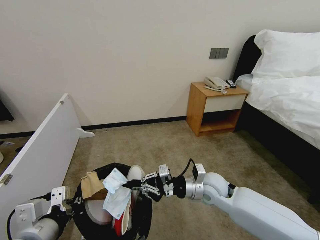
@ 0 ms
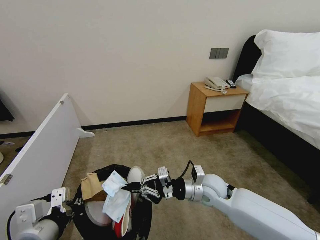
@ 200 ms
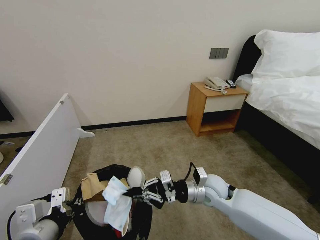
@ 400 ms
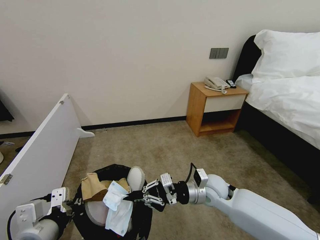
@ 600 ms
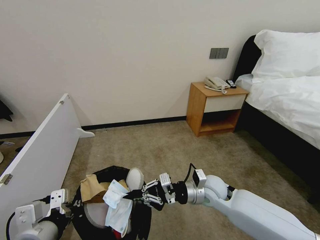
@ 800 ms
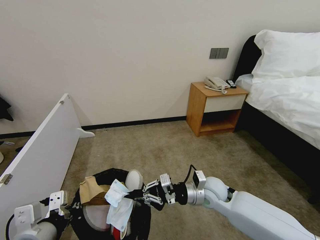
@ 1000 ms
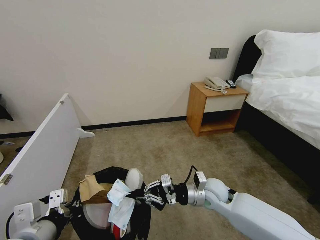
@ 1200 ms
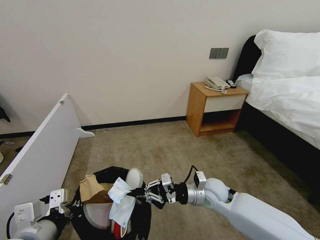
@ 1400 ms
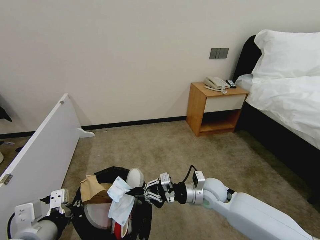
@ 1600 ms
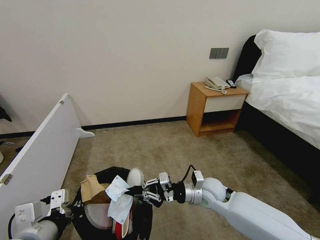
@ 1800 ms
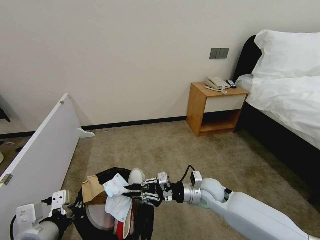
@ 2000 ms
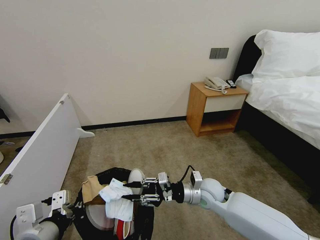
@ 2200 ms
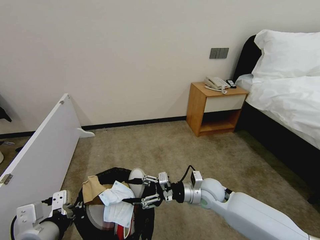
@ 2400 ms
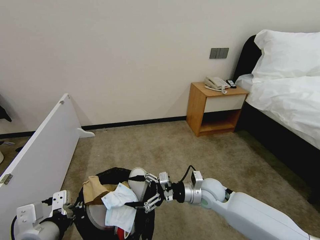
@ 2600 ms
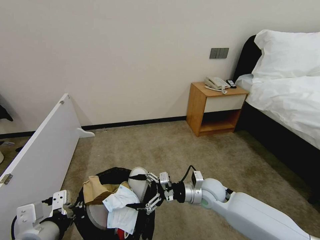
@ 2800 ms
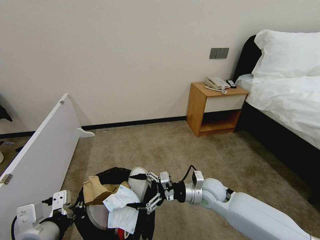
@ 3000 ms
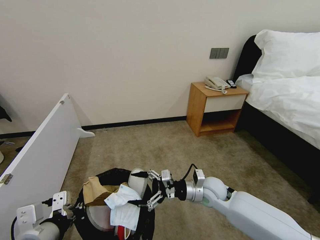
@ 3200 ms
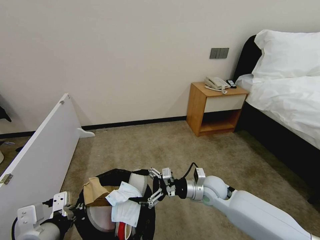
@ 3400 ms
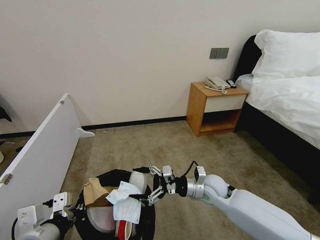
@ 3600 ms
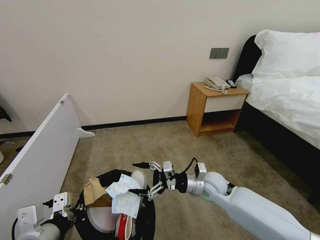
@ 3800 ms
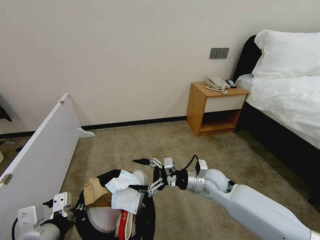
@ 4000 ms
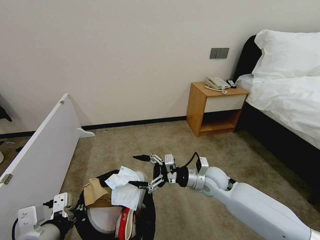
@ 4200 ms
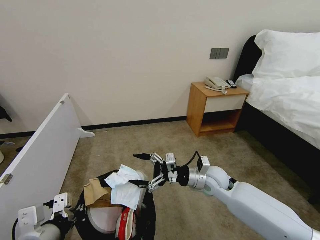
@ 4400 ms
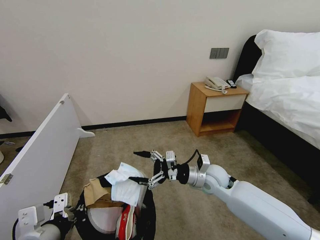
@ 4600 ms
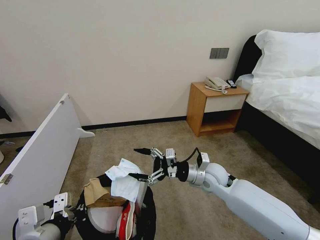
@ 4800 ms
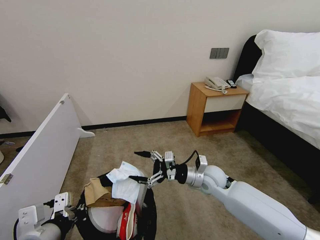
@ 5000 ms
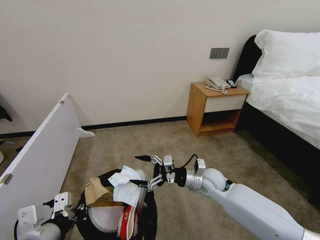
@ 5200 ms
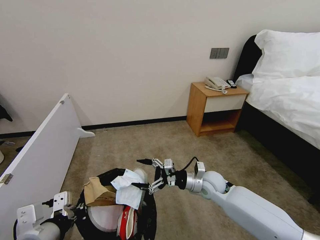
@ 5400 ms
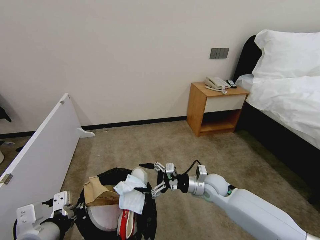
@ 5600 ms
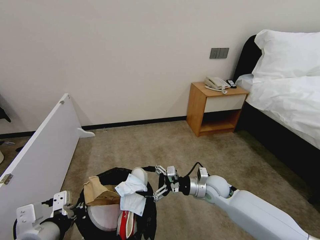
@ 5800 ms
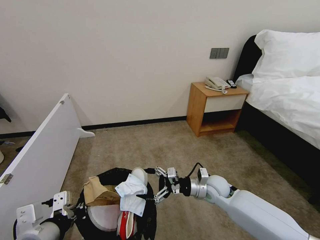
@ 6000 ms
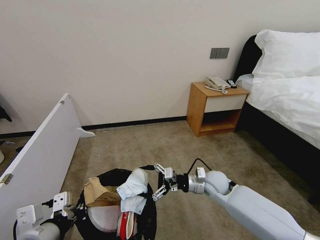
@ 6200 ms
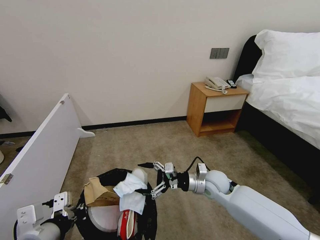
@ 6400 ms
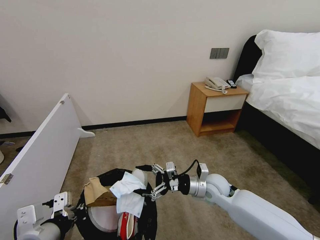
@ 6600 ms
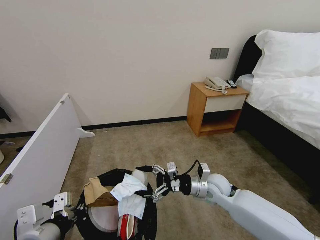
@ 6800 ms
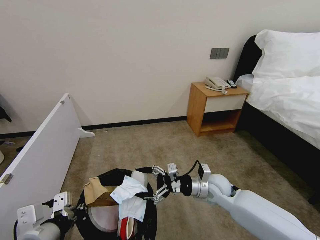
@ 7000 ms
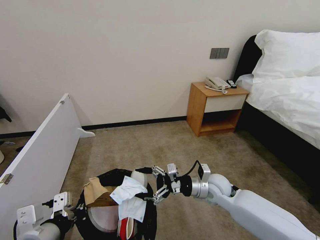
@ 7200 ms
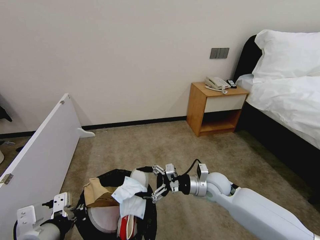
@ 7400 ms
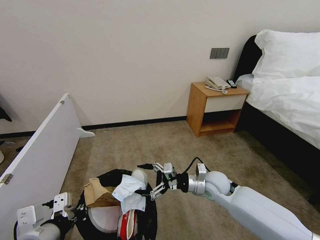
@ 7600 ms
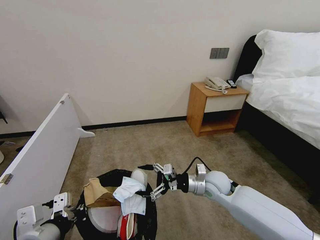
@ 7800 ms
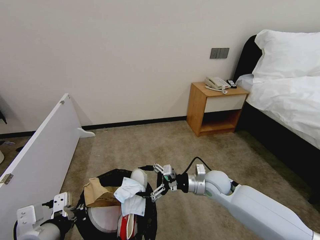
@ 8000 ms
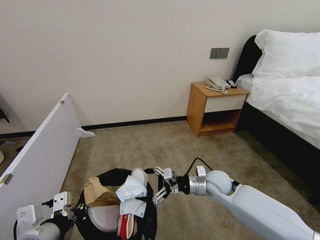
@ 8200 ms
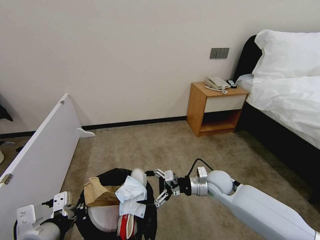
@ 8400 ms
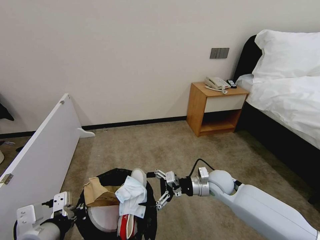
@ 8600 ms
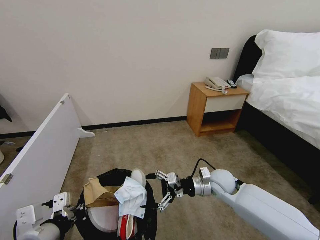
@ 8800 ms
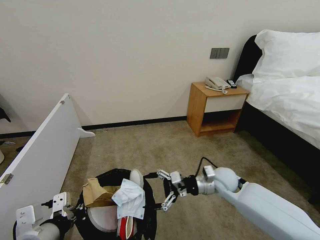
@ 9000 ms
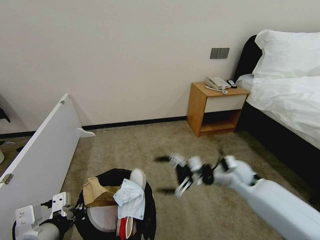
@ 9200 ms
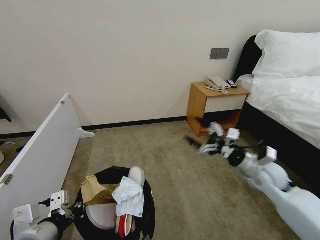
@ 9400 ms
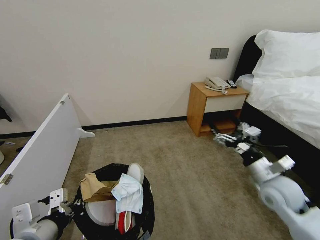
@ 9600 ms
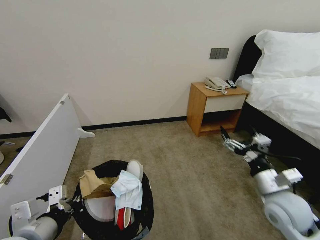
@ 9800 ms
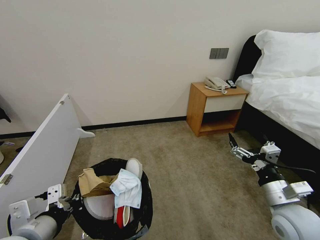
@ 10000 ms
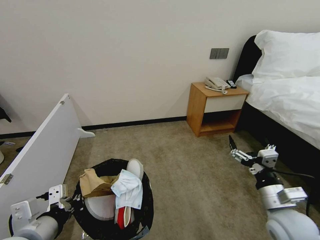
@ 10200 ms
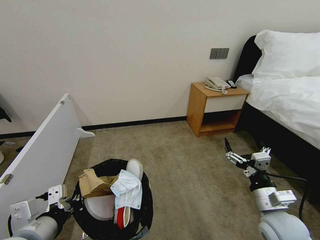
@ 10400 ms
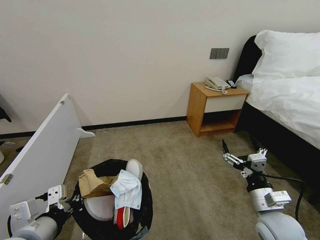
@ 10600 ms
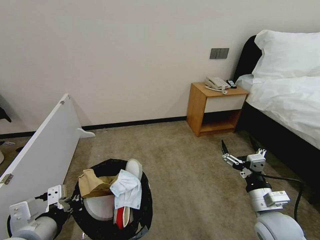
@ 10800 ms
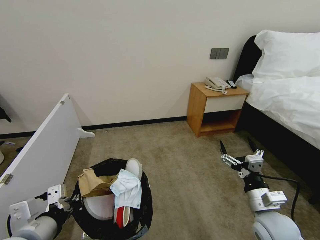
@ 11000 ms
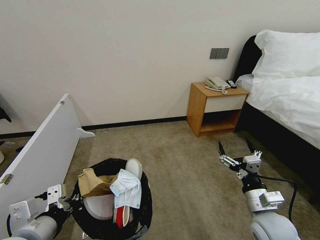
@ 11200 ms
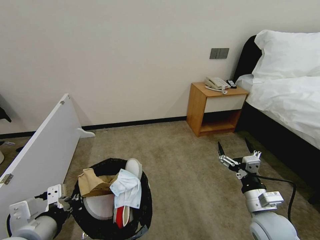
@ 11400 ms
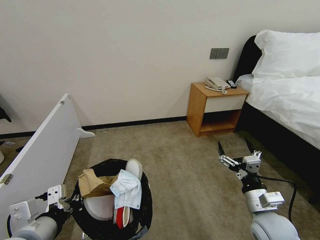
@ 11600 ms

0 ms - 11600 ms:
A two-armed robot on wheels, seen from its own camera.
Task of the whole recording: Pick up the trash bin, then pick up the garbage from the floor and place it into the trash bin.
0 ms - 1400 ms: The grippers make only small movements.
1400 ms - 2800 ms: The right gripper opens up.
2800 ms - 4400 ms: The grippers make only small movements.
4400 ms - 5800 ms: The right gripper is displaced downward by roughly 5 cm.
5800 ms - 8800 ms: The grippers make only small movements.
8800 ms - 10200 ms: The right gripper goes some 20 cm backward and to the right.
10200 ms - 11600 ms: There are only small adjustments of the grippers.
